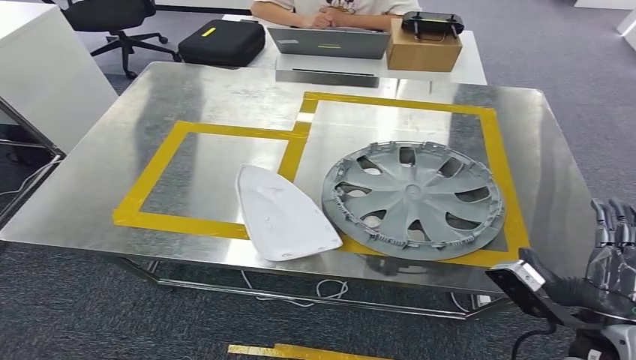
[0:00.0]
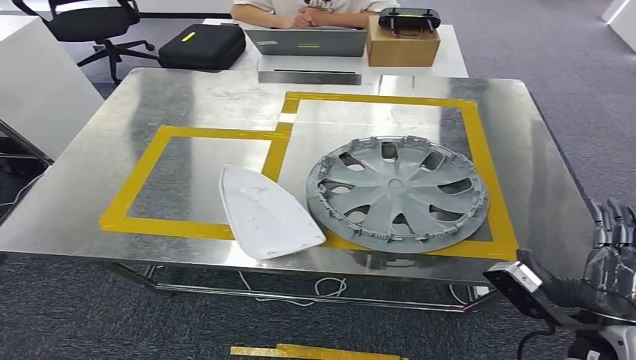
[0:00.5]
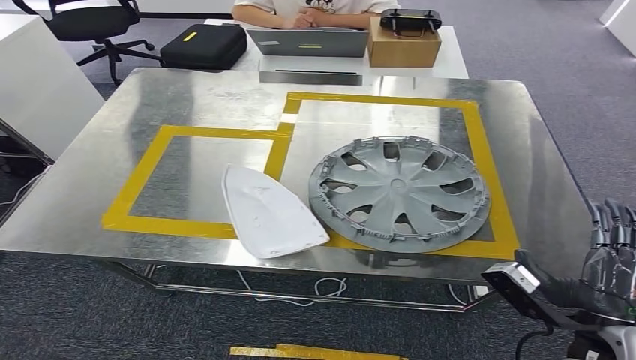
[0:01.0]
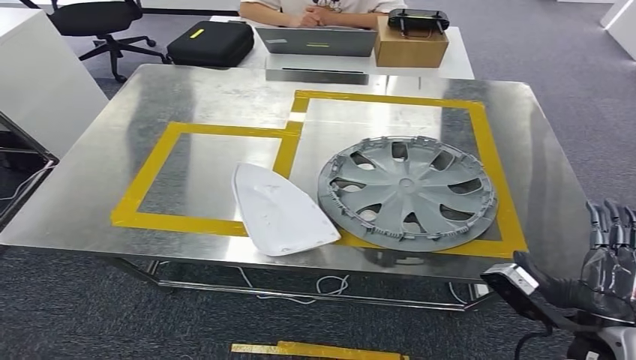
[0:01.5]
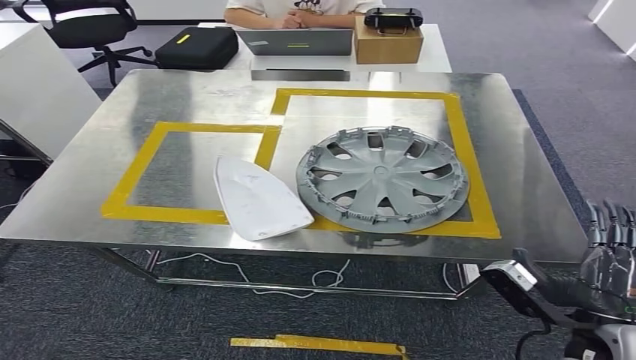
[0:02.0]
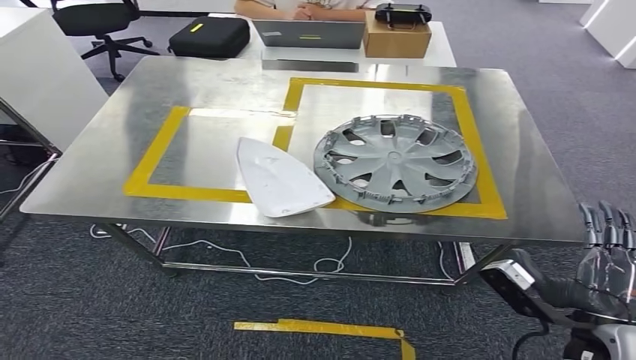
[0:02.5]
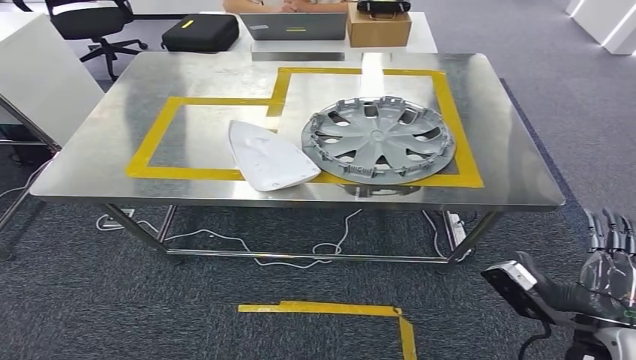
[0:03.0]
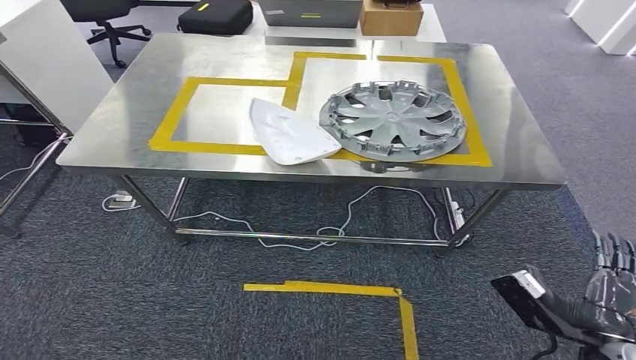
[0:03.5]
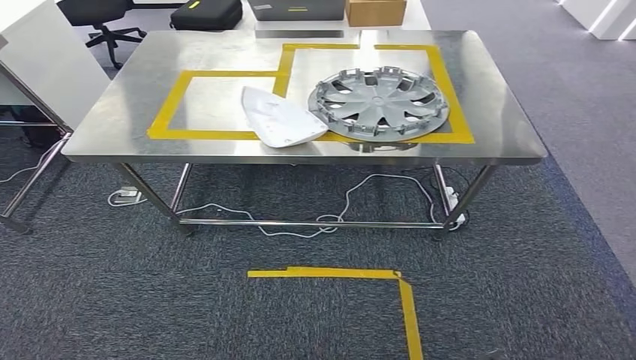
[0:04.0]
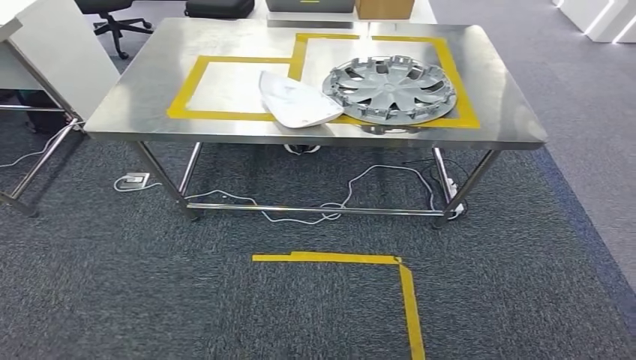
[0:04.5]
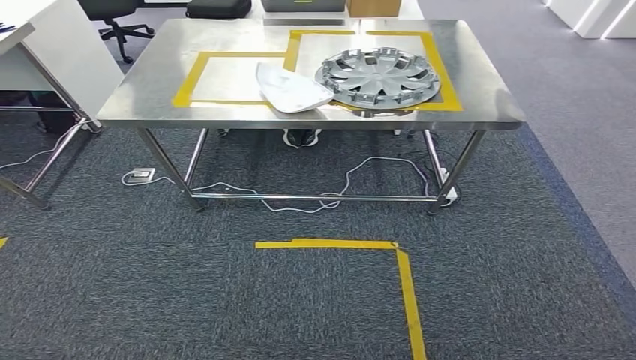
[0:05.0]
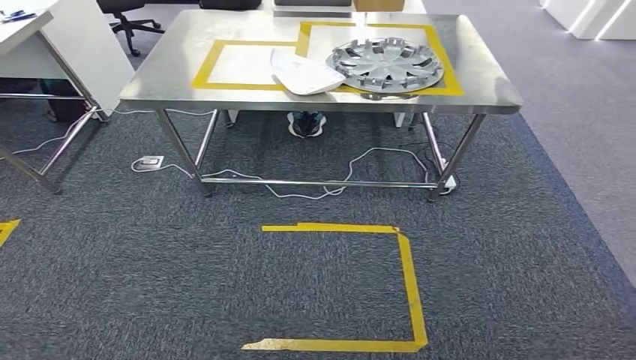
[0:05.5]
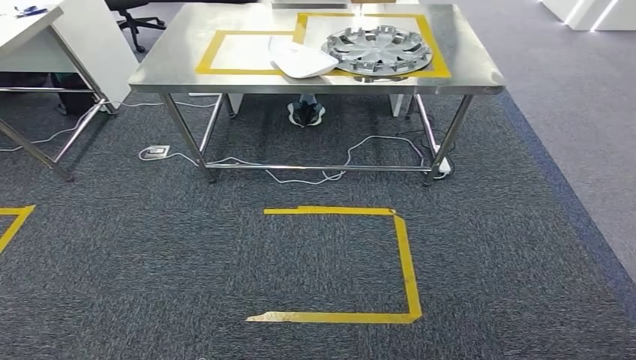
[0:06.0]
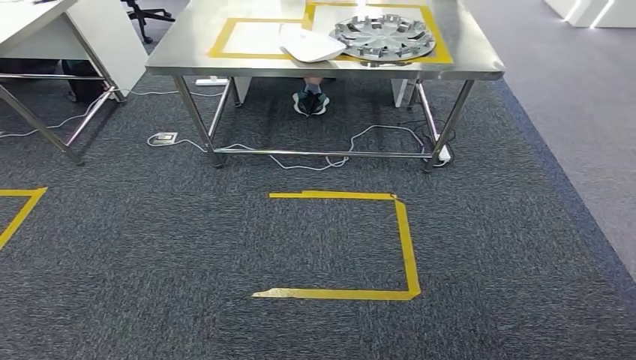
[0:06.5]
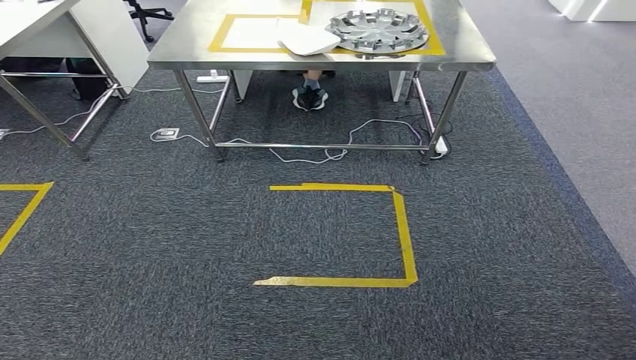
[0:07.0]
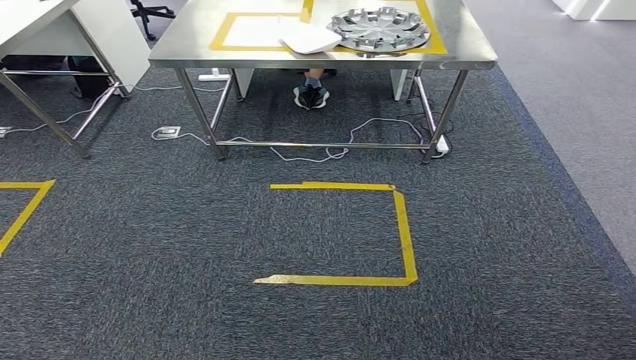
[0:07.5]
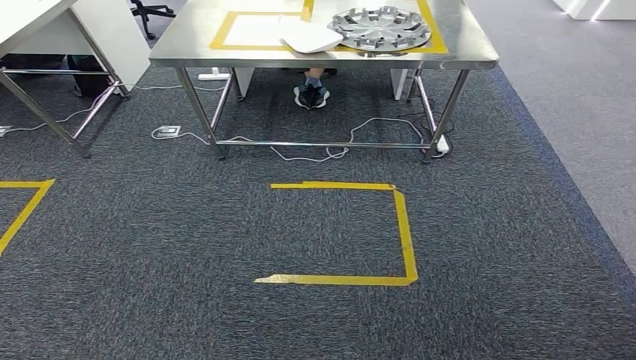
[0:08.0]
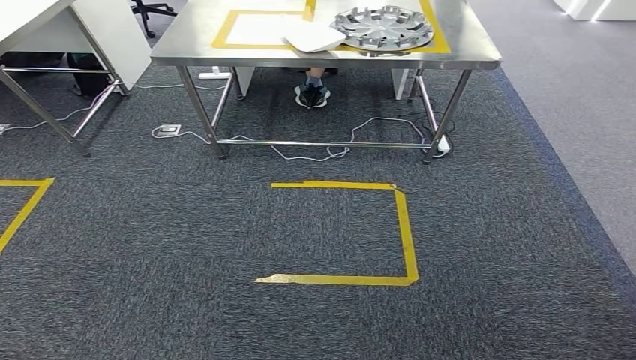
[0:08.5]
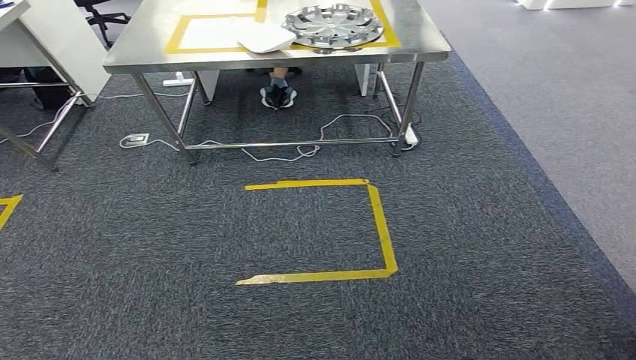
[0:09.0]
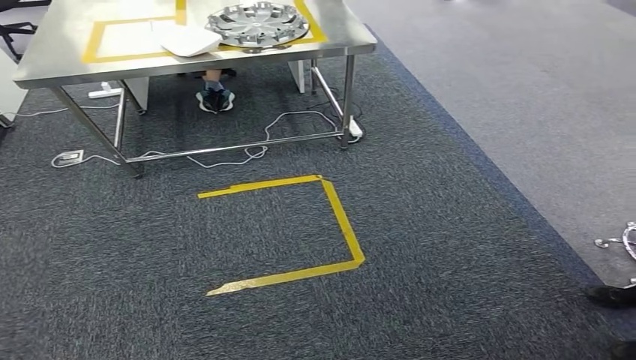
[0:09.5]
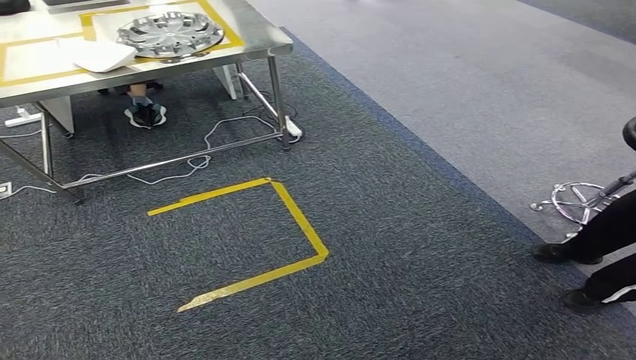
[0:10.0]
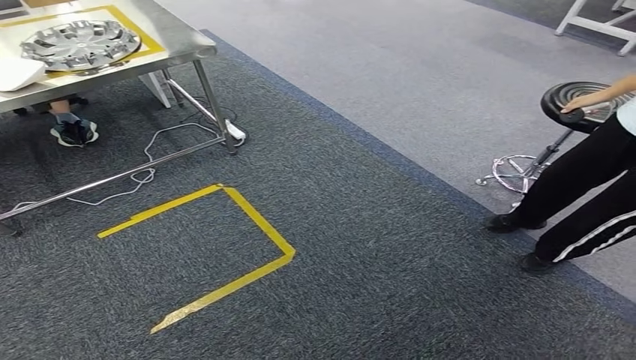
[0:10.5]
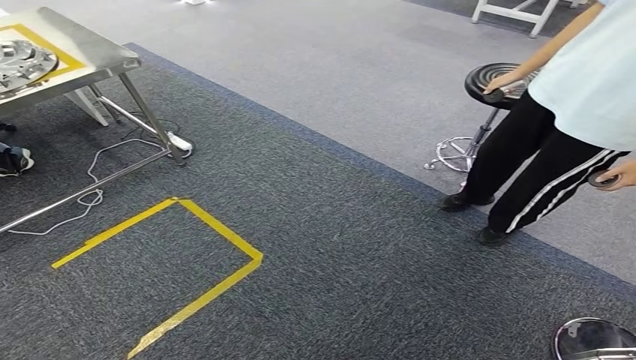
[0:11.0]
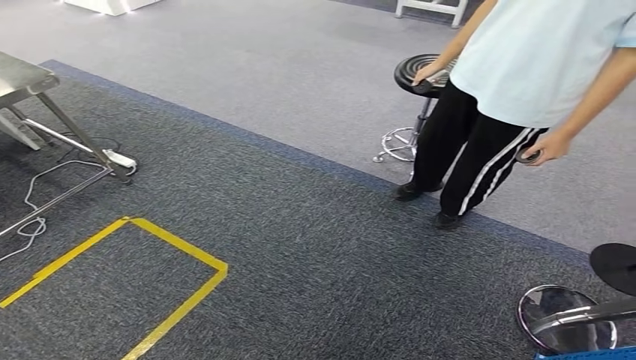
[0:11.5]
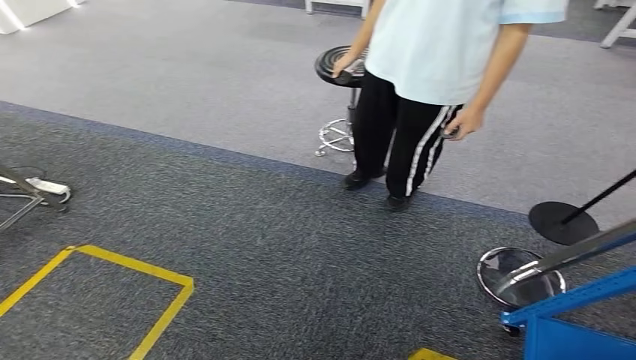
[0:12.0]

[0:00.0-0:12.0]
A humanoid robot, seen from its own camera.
Step, 0:00.0 to 0:02.0: Insert the small component into the corresponding slot on the workbench.

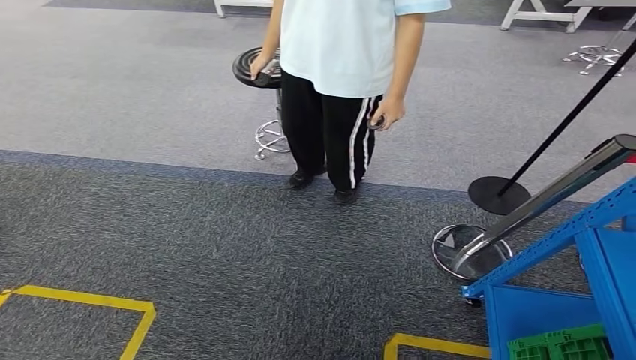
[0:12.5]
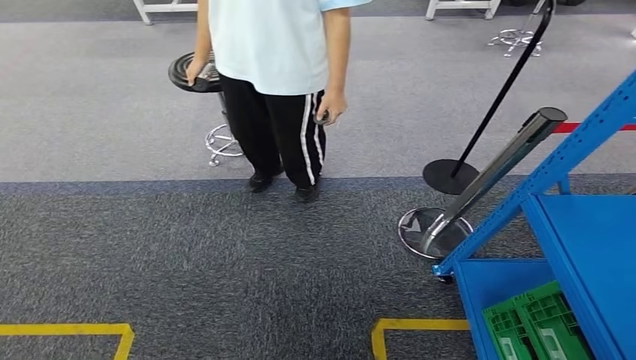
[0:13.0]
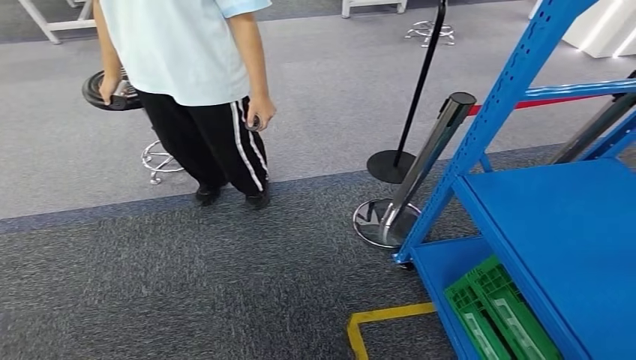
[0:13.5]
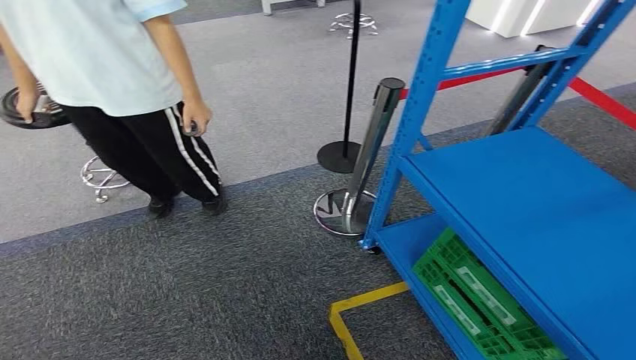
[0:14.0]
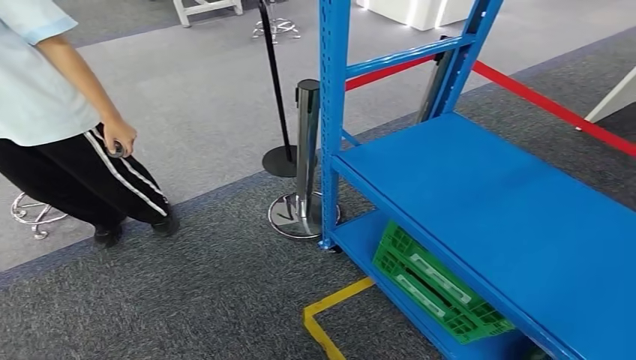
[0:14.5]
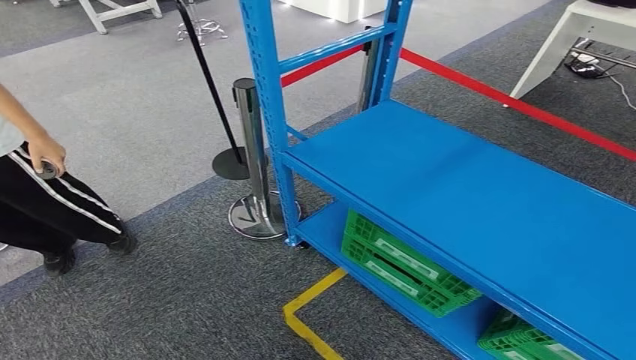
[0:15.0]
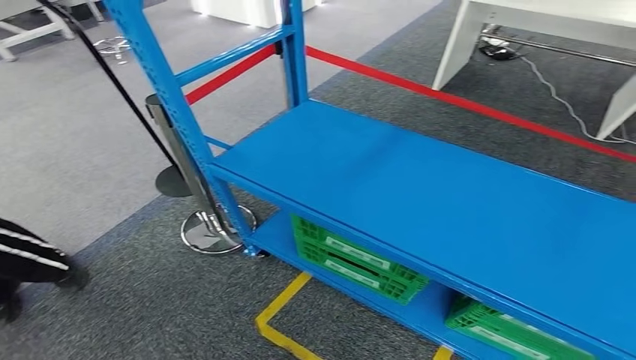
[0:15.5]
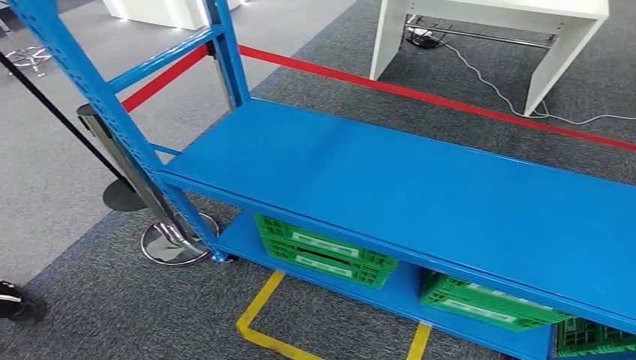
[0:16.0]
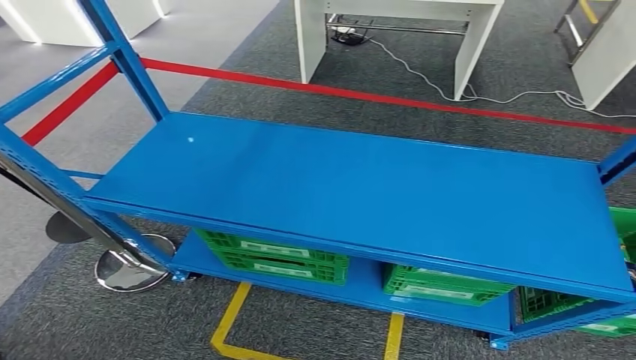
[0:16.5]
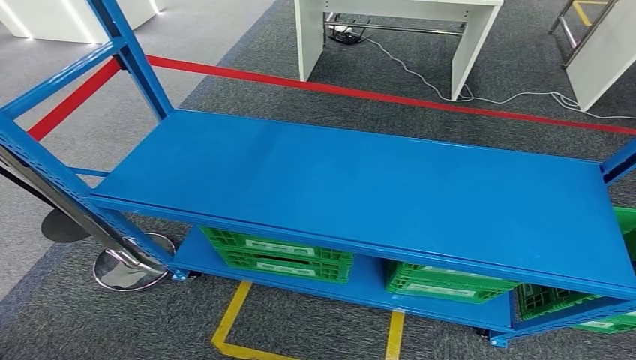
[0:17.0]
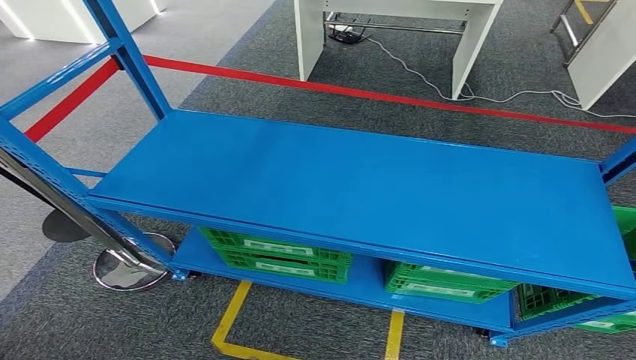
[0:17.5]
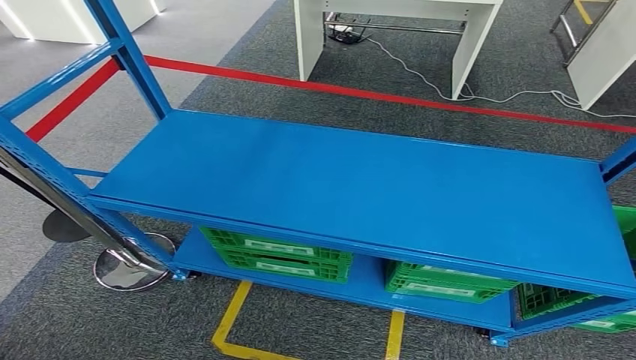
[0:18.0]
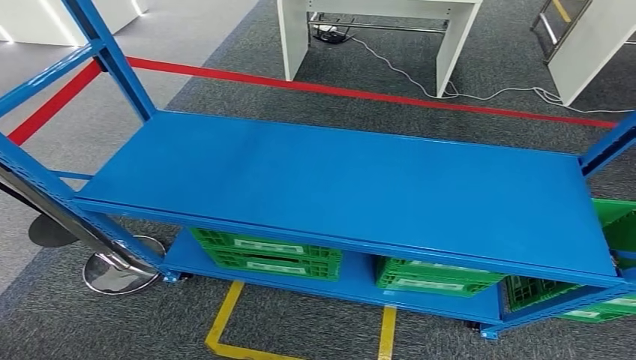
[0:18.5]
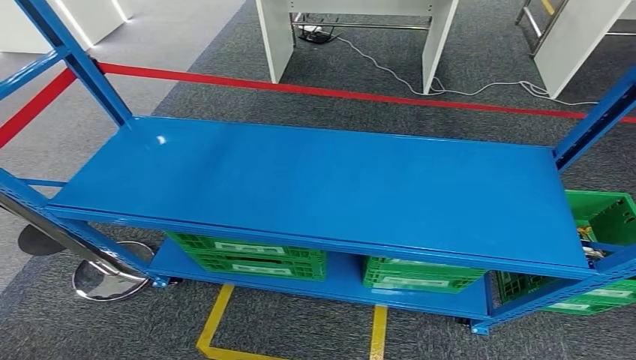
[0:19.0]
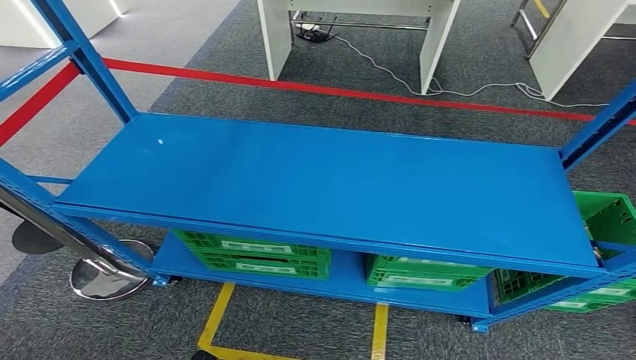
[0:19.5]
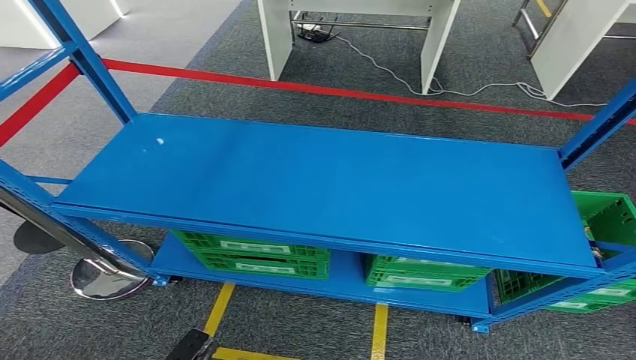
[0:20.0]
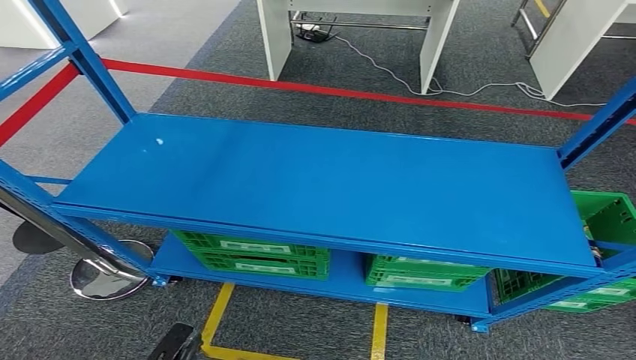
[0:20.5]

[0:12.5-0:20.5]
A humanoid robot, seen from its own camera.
Step, 0:12.5 to 0:20.5: Move to the initial position at the workbench.
